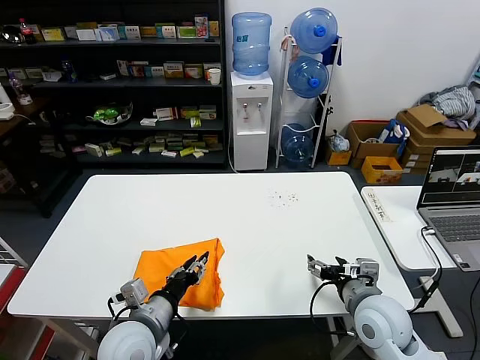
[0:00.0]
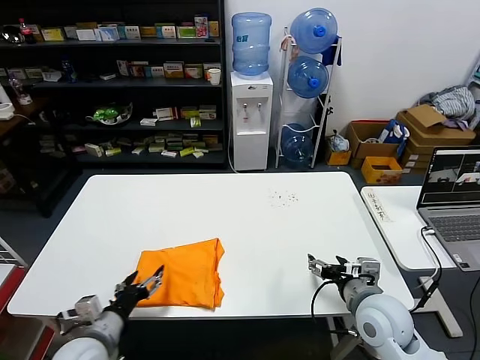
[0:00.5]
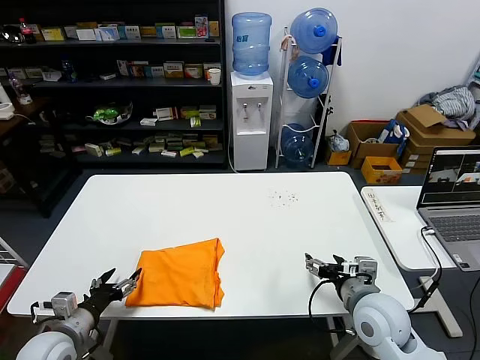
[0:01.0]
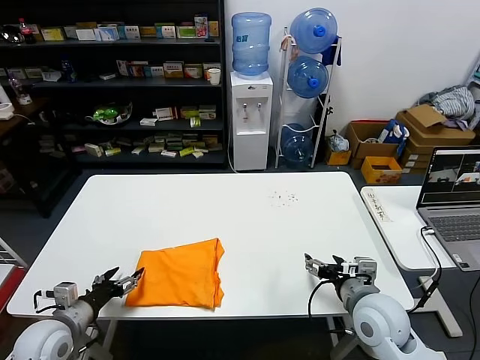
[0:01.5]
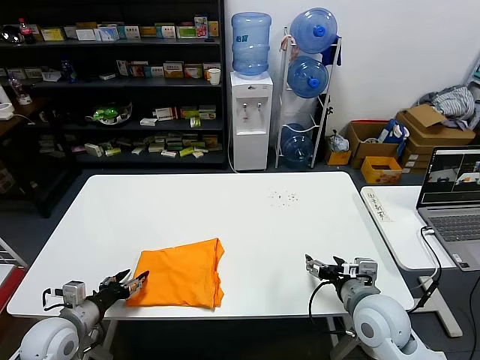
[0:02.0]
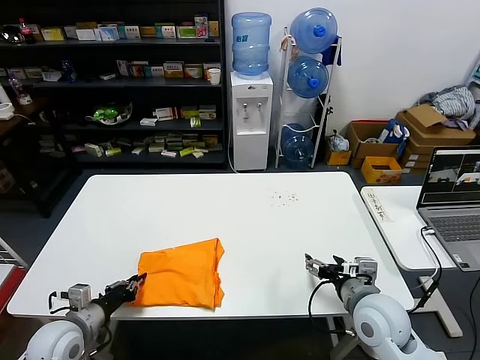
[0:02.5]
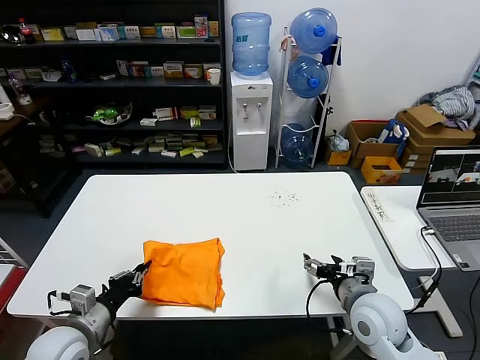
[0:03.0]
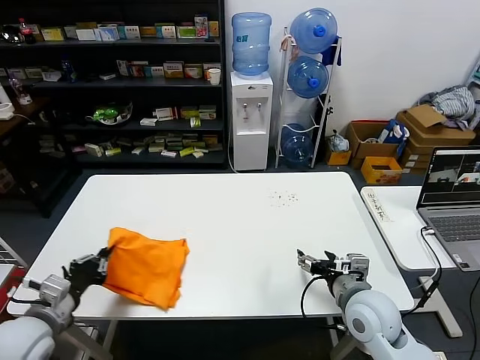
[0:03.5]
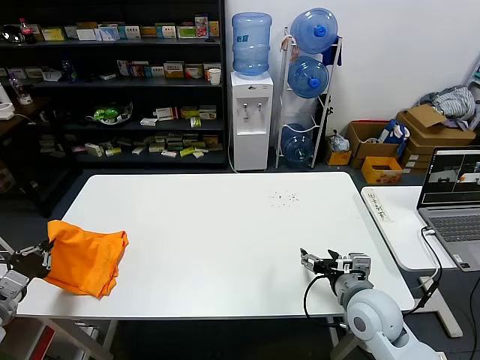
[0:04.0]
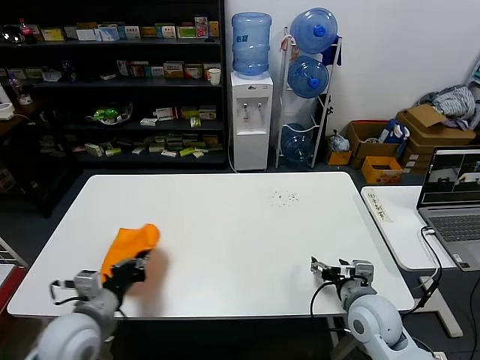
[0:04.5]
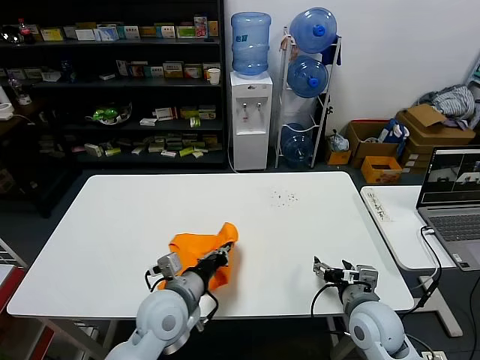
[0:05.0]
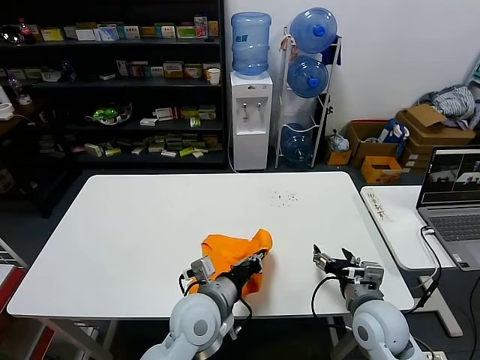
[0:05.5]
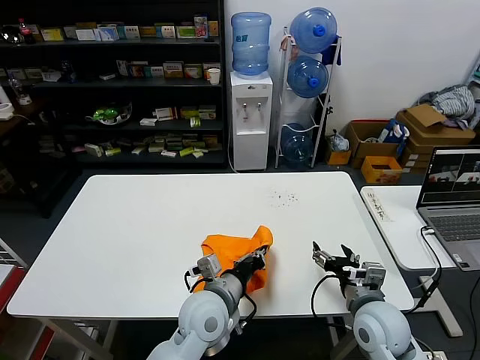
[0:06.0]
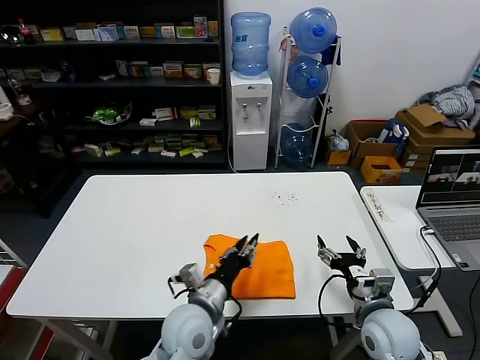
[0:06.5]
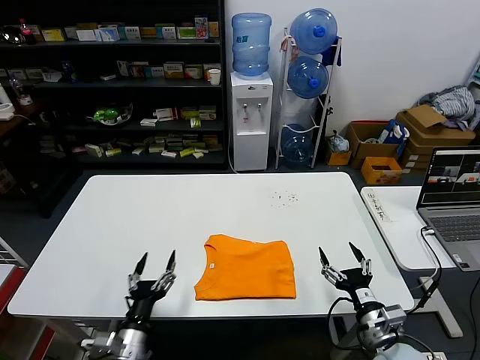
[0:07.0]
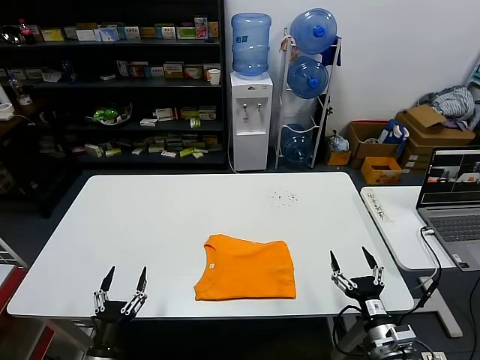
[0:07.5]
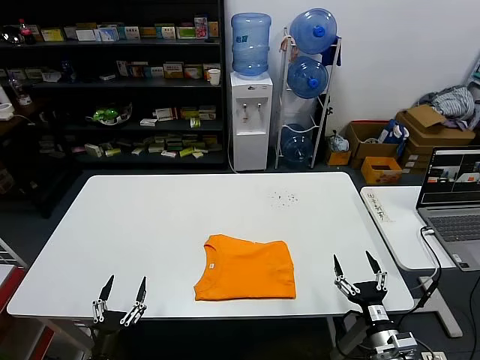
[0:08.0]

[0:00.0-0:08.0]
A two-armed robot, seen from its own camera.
Task of the whole recording: fold and organize the clothes.
Step, 0:00.5 to 0:06.5: Flip the folded clothes over with left gripper.
0:00.0 to 0:02.0: The left gripper shifts about 20 cm to the left.
0:02.0 to 0:04.0: The left gripper heads to the left and upward, covering approximately 15 cm, and closes its fingers.
0:04.0 to 0:06.0: The left gripper goes about 40 cm to the right.
0:06.0 to 0:08.0: The left gripper goes roughly 35 cm to the left, downward and backward, and opens up; the right gripper goes approximately 15 cm downward and backward.
